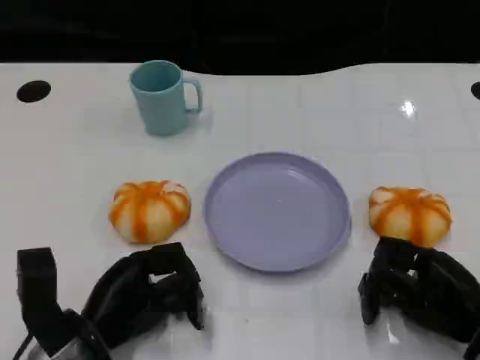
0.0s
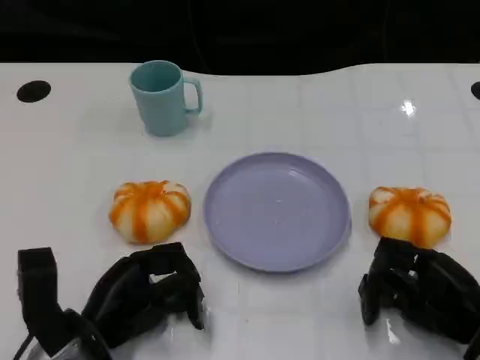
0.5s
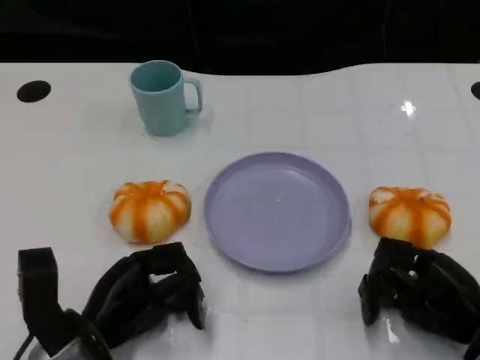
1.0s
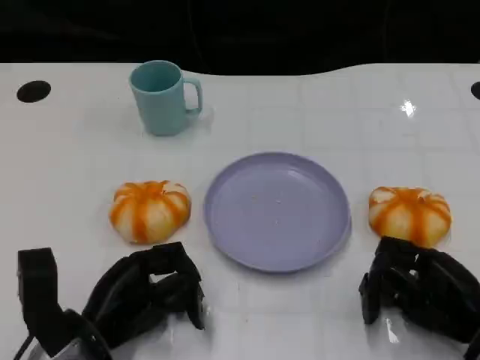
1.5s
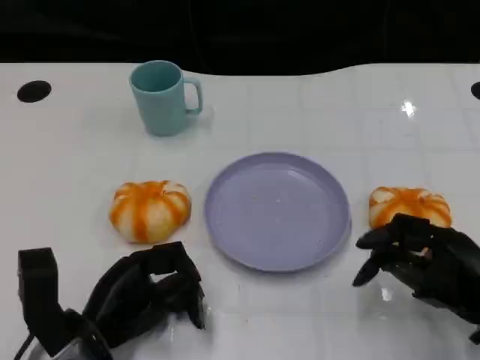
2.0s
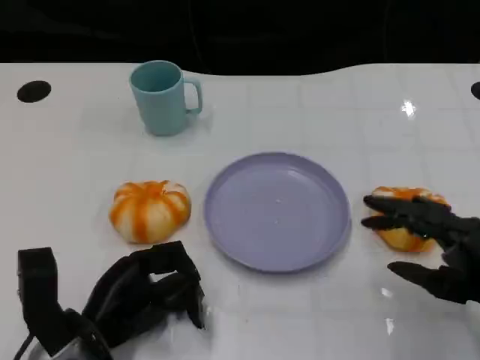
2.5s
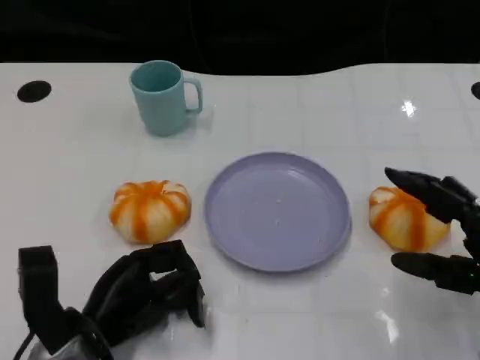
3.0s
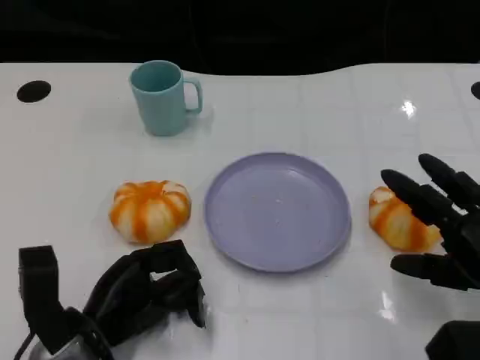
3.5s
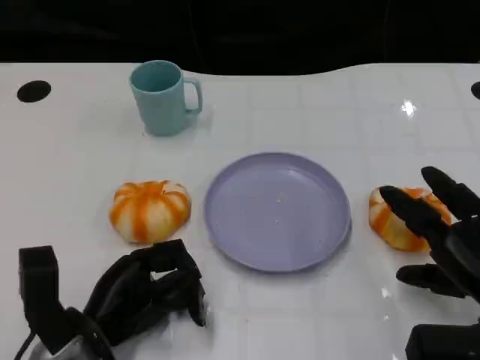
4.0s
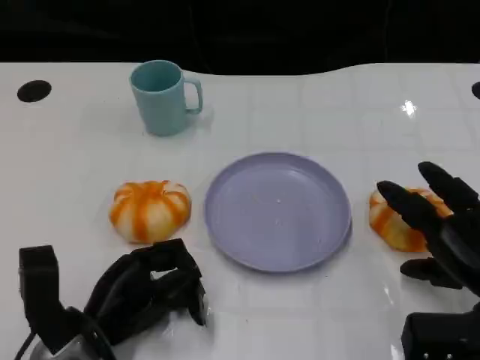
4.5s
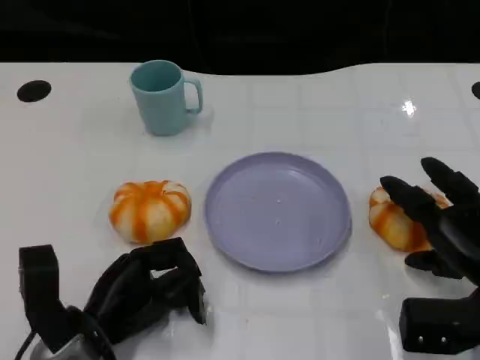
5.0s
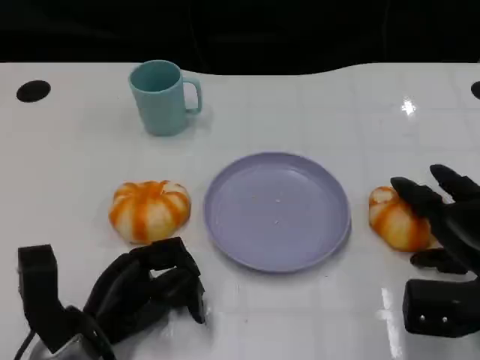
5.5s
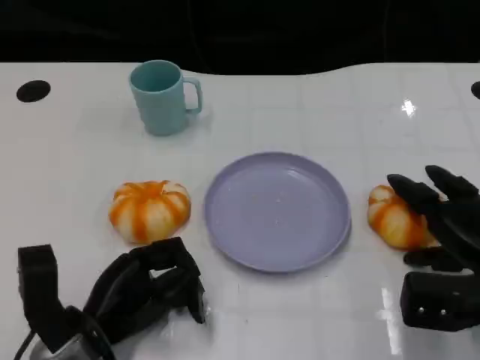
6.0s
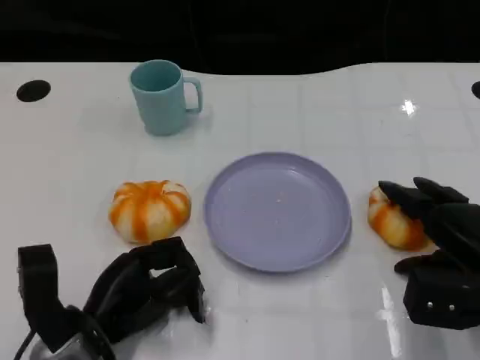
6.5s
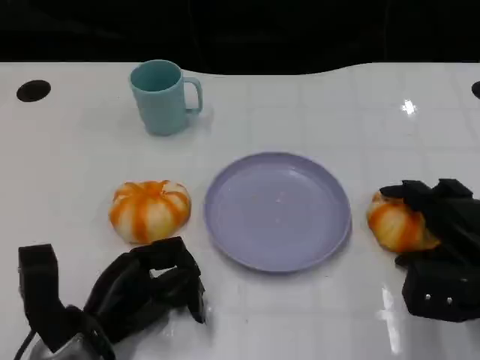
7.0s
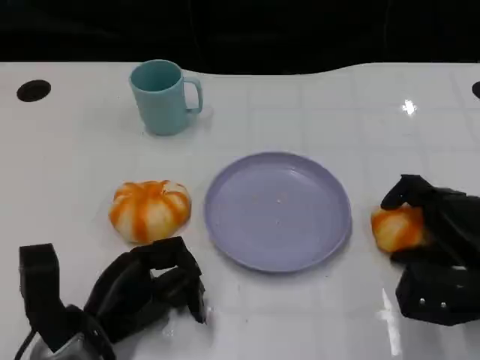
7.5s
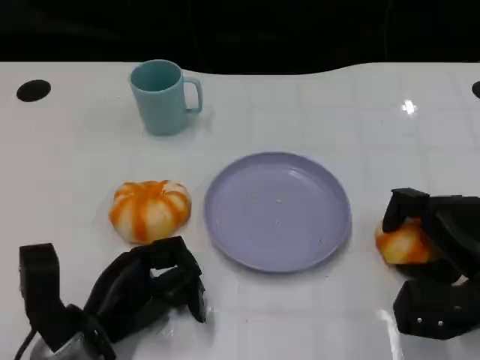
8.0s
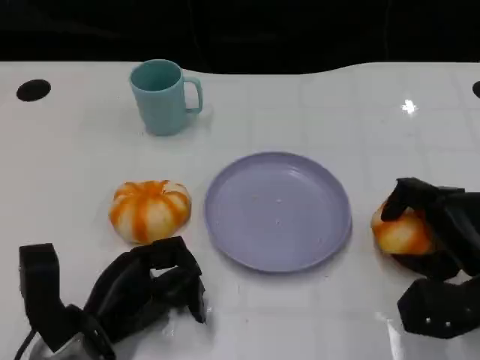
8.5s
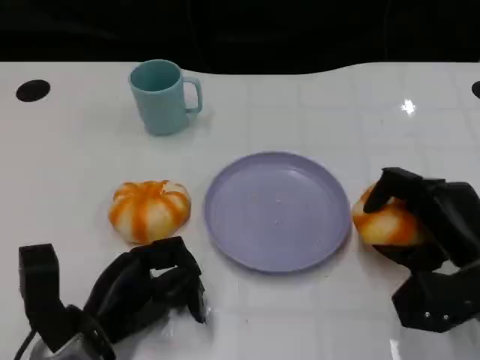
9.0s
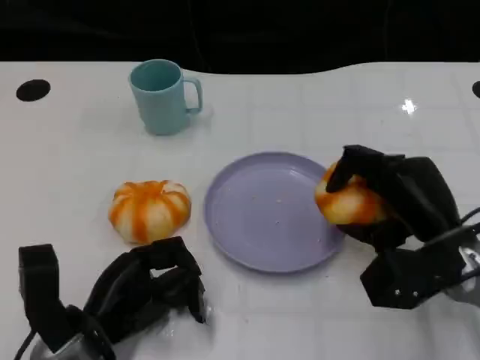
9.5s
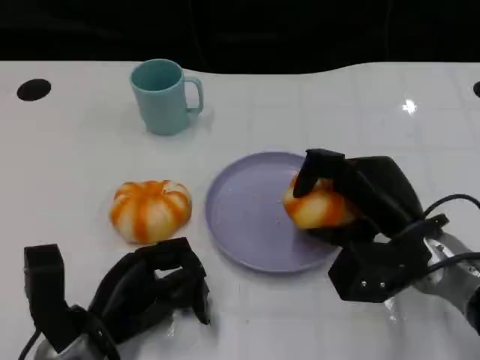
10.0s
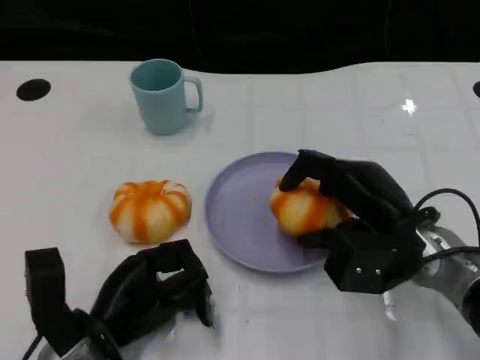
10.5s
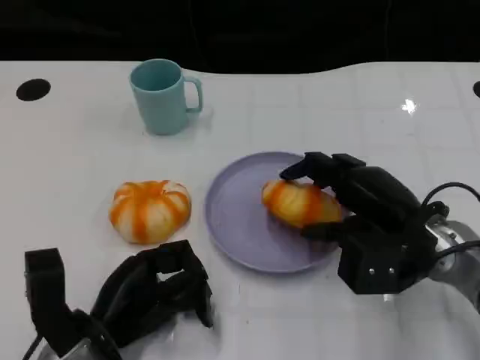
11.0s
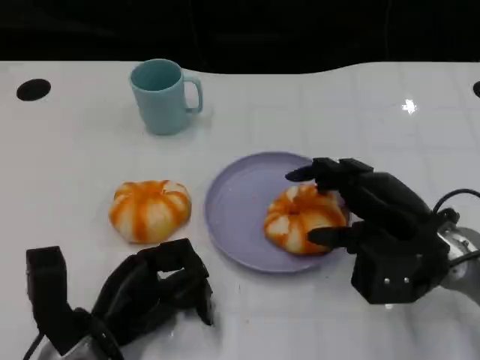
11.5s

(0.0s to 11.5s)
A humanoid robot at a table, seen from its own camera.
Task of the whole recording: Grasp the bread from the table and place it into the plate.
4.0s - 7.5s: There are only small adjustments of the hands.
7.5s - 9.5s: The right hand heads to the left, covering some 5 cm.

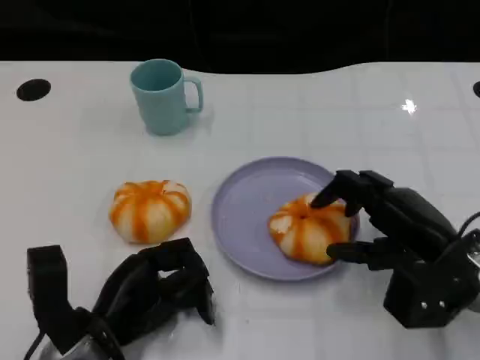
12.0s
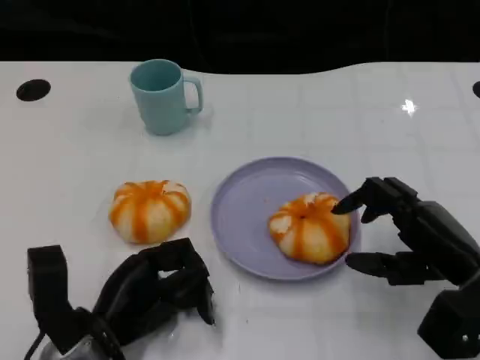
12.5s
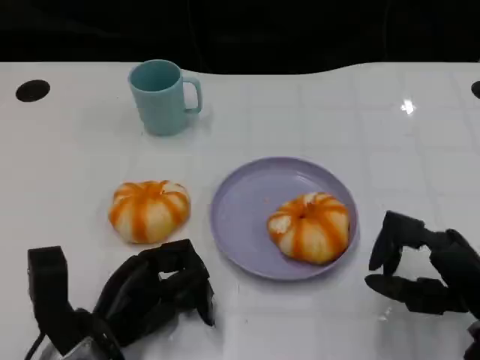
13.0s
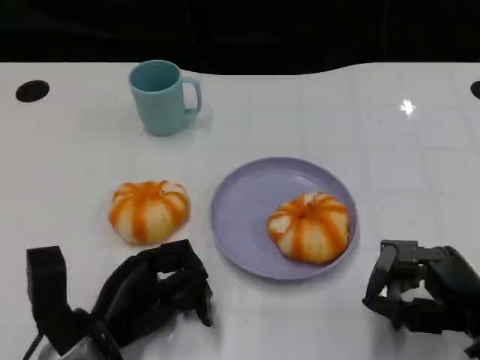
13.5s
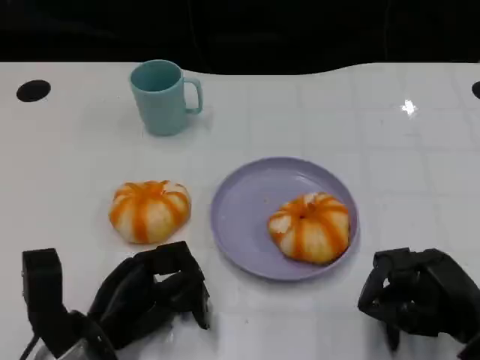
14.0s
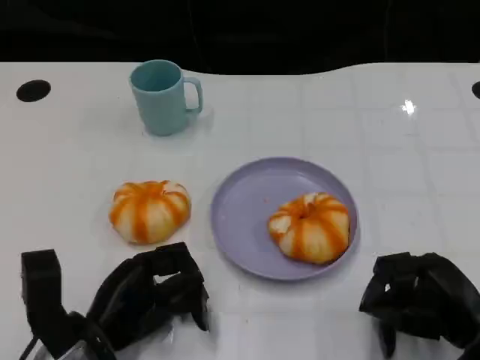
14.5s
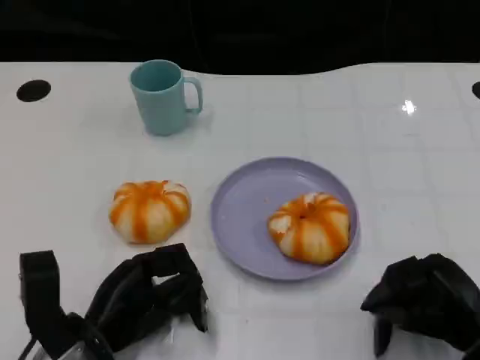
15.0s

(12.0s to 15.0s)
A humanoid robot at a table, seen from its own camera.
Task of the whole recording: Grasp the bread from the table and place it into the plate.
12.0s - 13.5s: The right hand moves backward, about 5 cm.

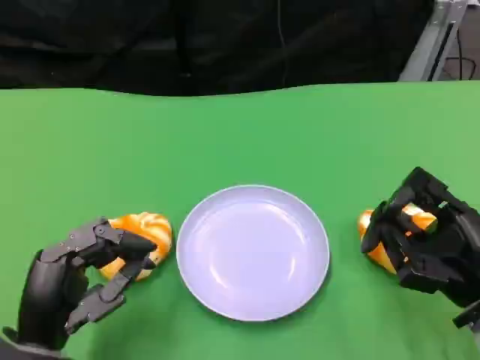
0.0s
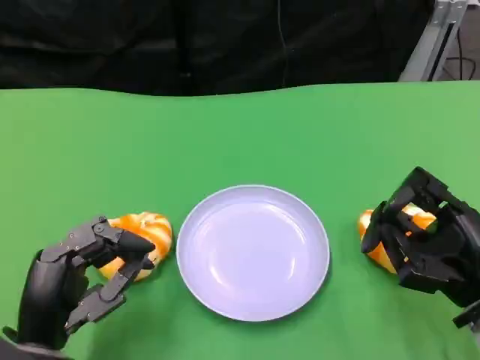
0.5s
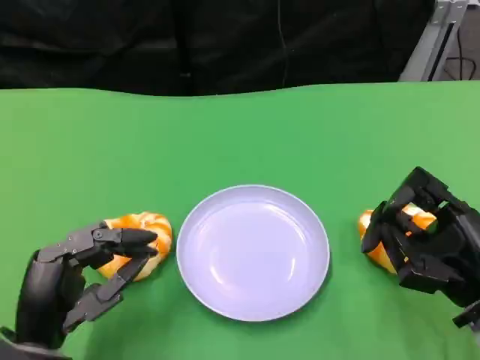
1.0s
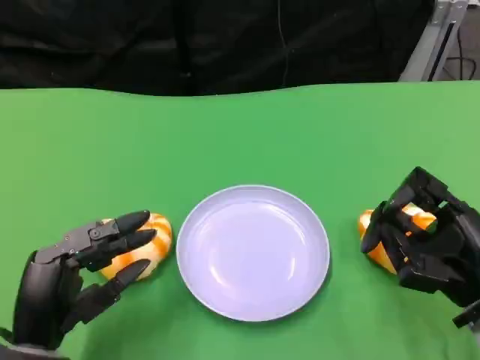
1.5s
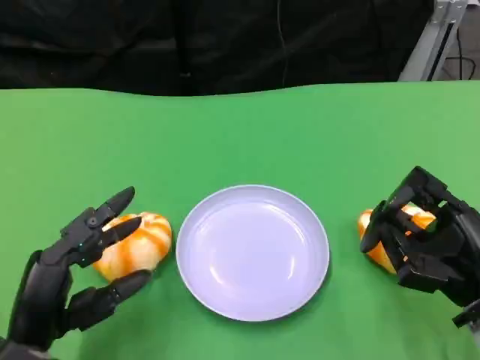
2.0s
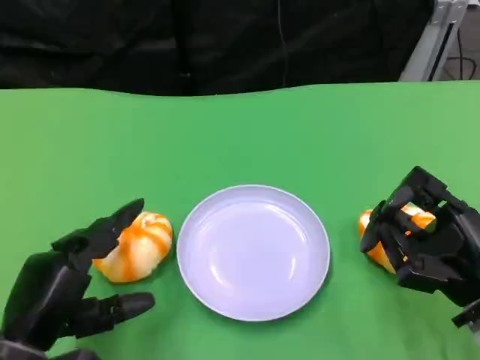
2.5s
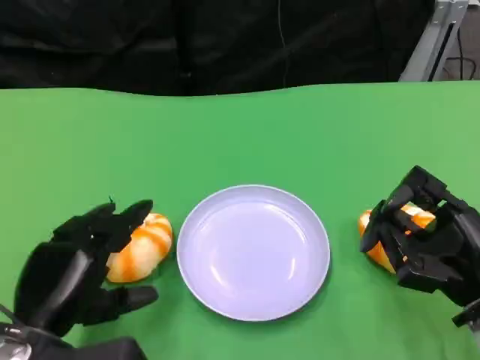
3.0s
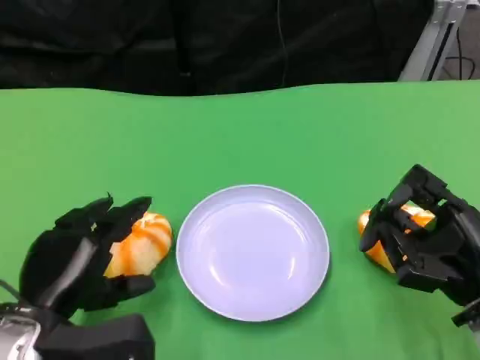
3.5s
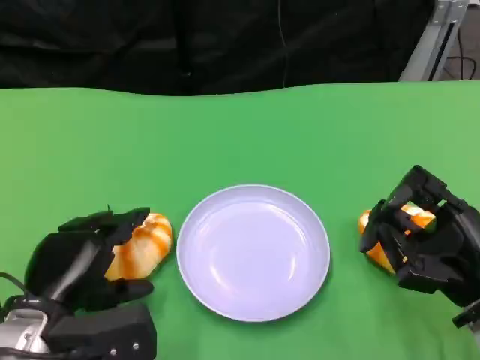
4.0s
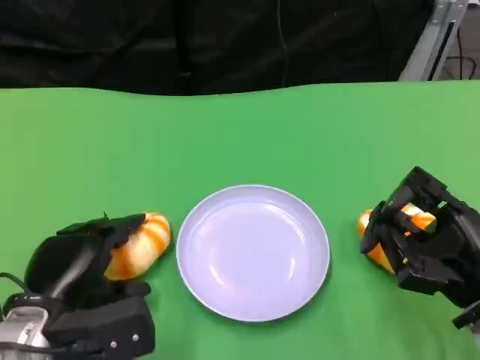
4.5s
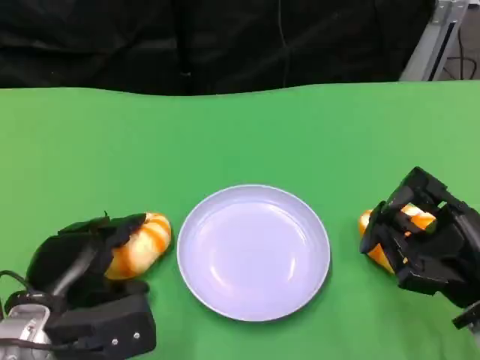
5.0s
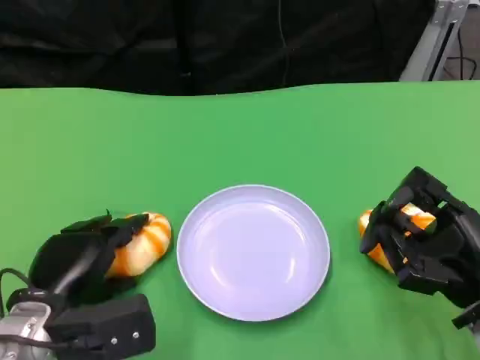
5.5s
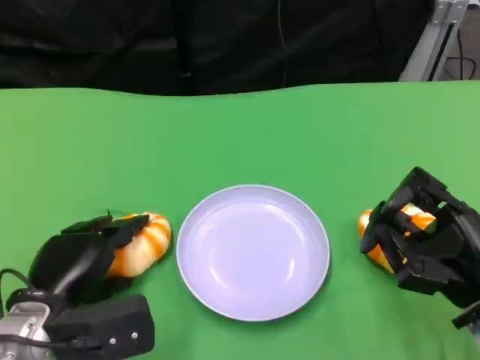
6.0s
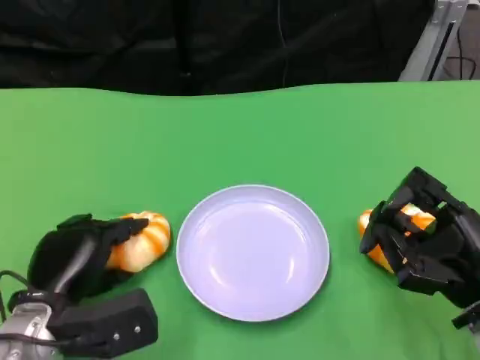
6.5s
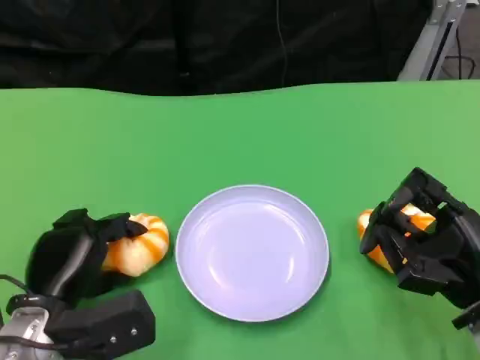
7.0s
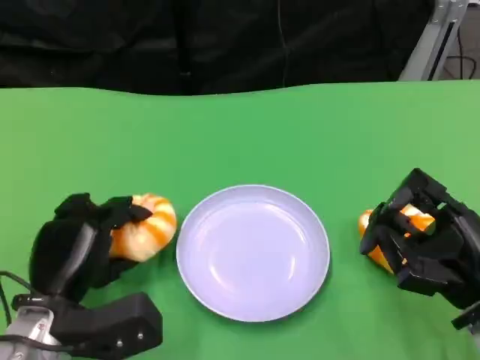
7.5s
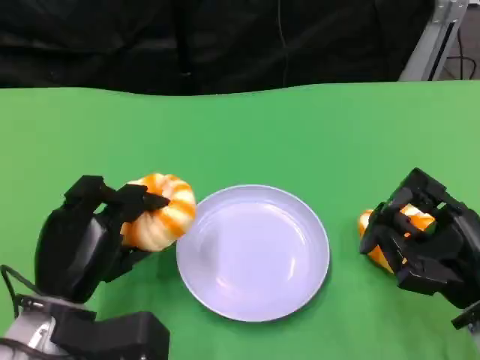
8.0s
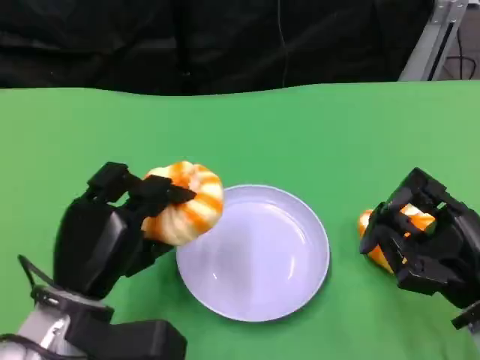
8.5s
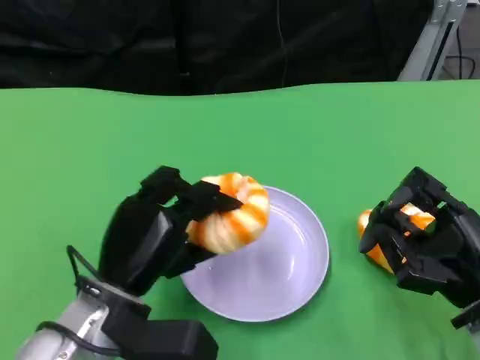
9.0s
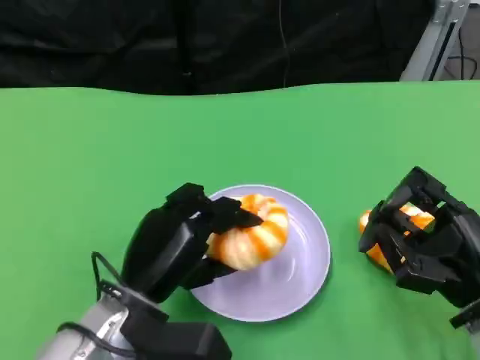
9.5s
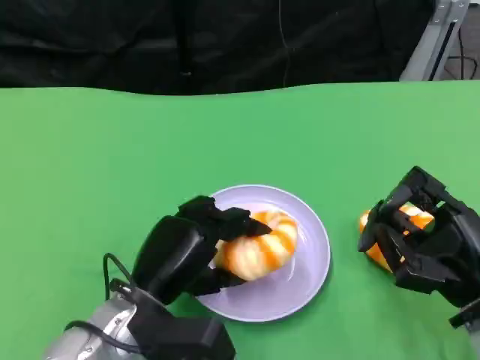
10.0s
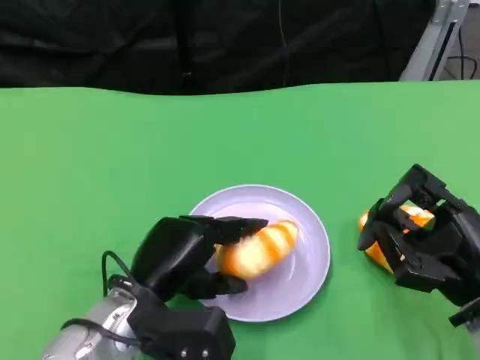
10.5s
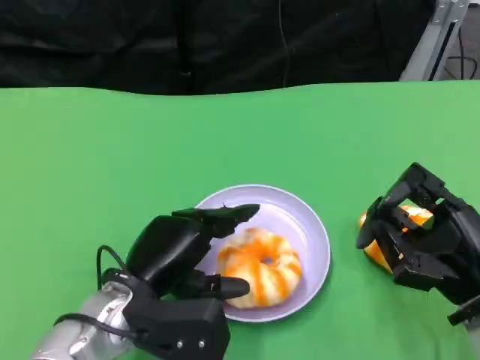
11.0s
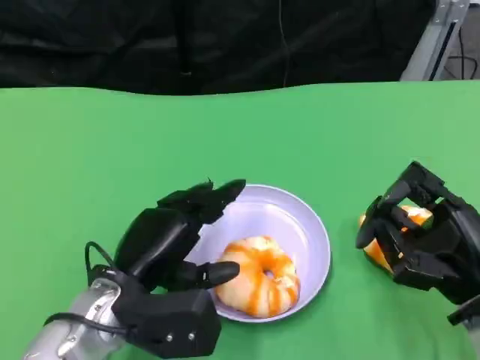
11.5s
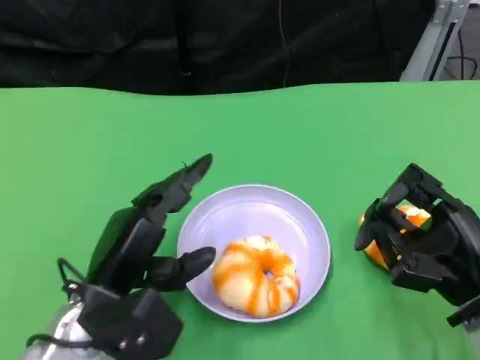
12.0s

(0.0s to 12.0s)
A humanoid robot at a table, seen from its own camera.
Task of the whole recording: Grasp the bread from the table and place it into the plate.
0.0s - 2.0s: The hands stay close to where they were, moving slightly.
4.0s - 6.0s: The hands stay close to where they were, moving slightly.
8.0s - 10.0s: The left hand travels to the right by about 5 cm.
10.0s - 12.0s: The hands move only a little.
